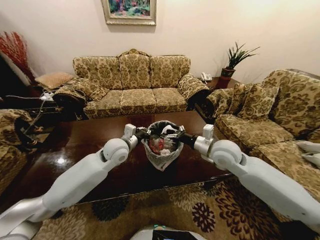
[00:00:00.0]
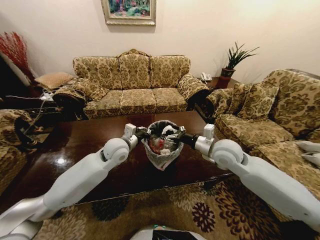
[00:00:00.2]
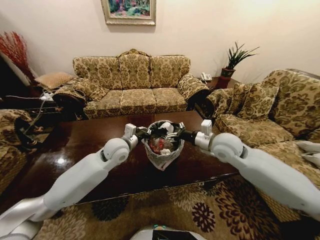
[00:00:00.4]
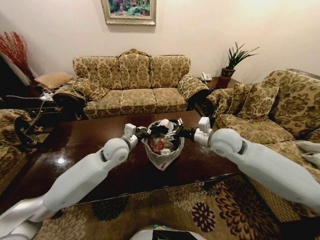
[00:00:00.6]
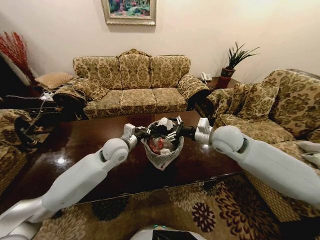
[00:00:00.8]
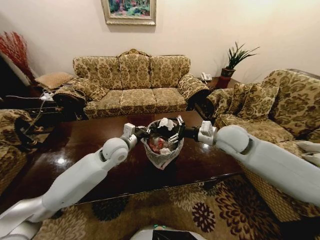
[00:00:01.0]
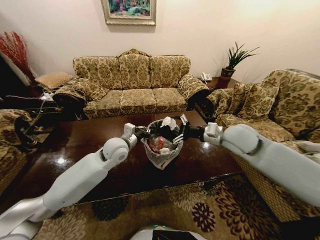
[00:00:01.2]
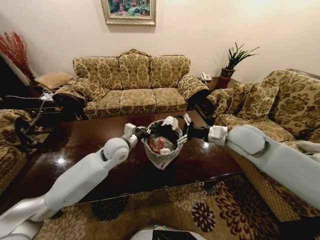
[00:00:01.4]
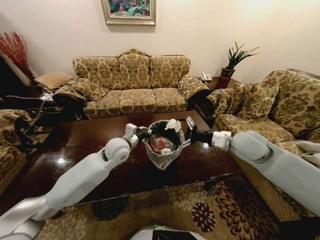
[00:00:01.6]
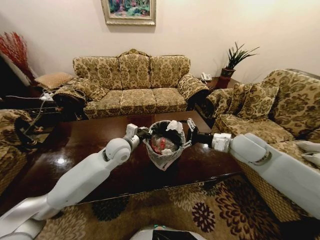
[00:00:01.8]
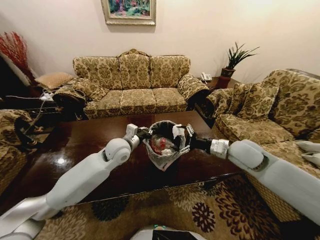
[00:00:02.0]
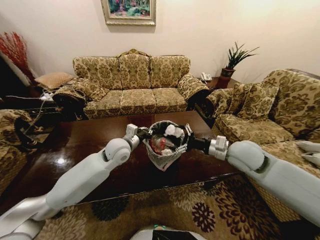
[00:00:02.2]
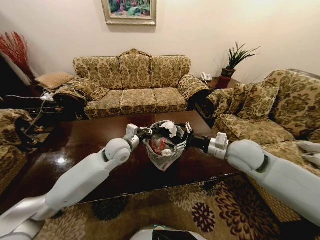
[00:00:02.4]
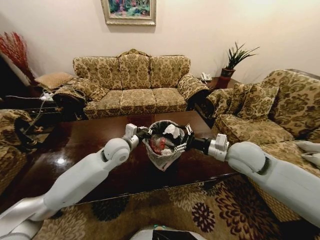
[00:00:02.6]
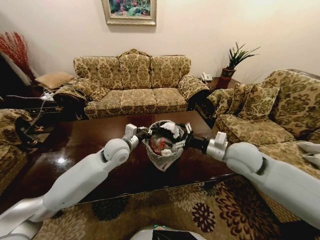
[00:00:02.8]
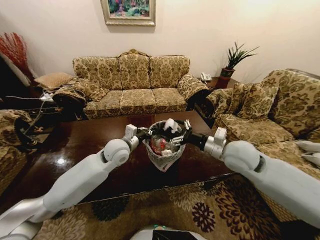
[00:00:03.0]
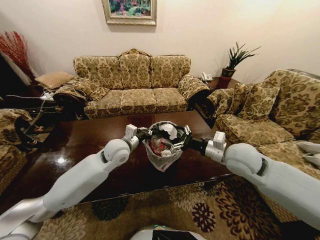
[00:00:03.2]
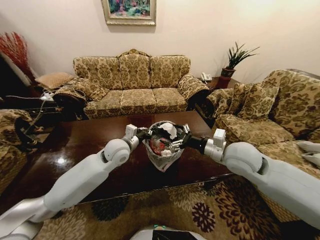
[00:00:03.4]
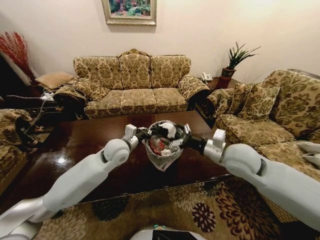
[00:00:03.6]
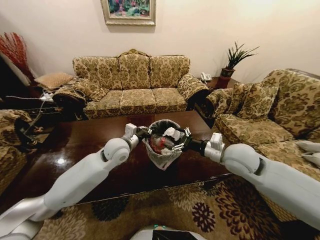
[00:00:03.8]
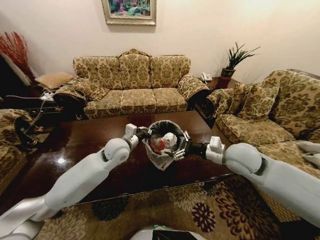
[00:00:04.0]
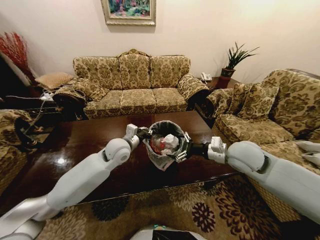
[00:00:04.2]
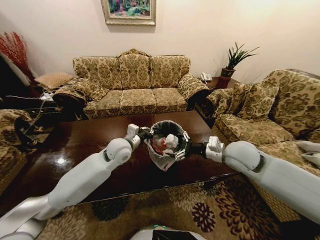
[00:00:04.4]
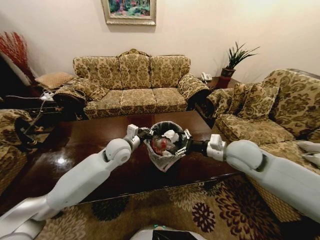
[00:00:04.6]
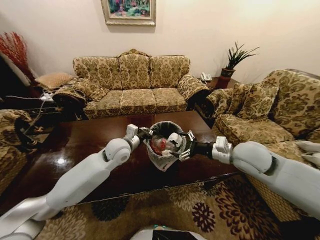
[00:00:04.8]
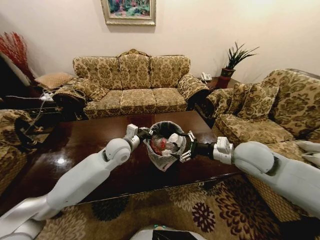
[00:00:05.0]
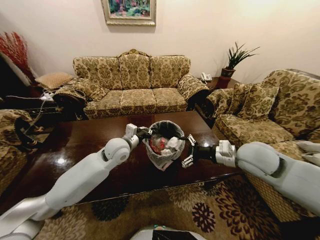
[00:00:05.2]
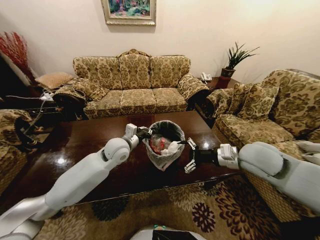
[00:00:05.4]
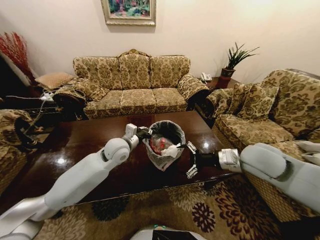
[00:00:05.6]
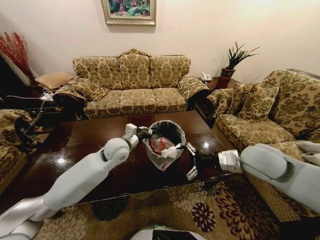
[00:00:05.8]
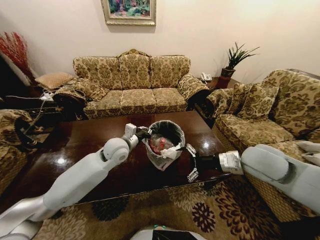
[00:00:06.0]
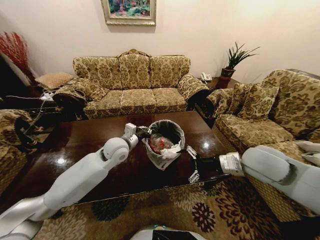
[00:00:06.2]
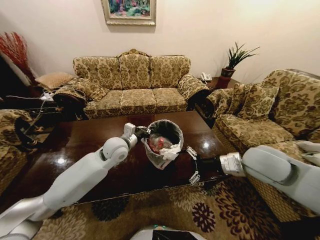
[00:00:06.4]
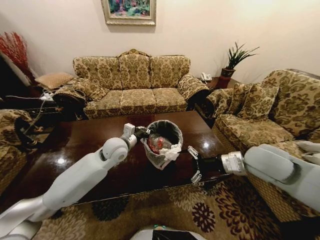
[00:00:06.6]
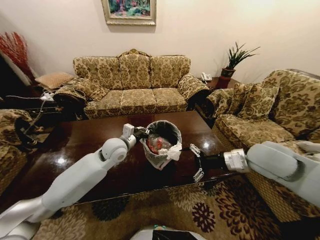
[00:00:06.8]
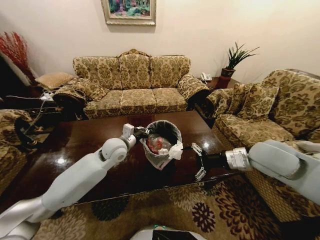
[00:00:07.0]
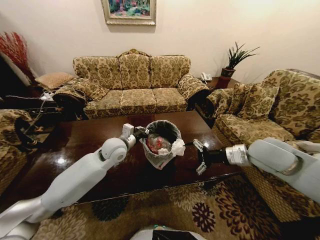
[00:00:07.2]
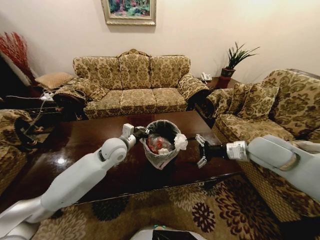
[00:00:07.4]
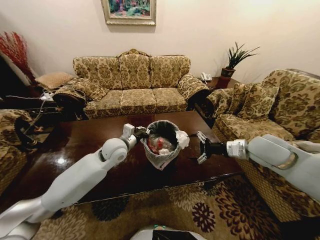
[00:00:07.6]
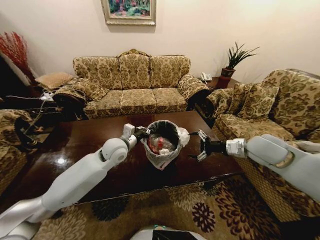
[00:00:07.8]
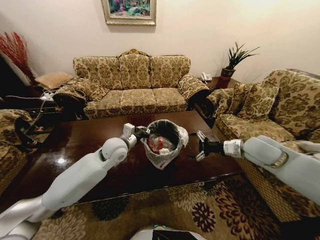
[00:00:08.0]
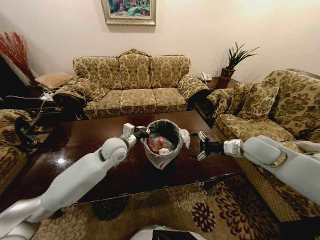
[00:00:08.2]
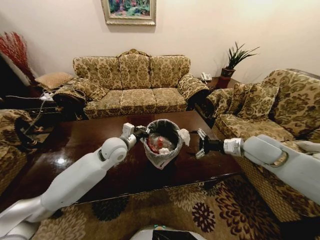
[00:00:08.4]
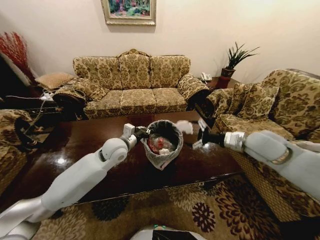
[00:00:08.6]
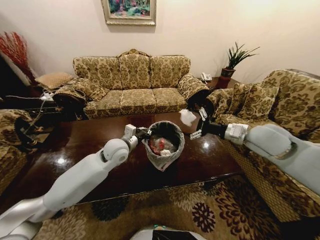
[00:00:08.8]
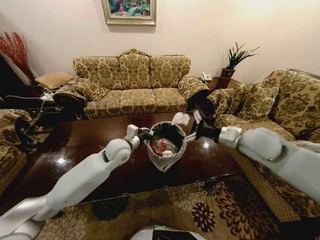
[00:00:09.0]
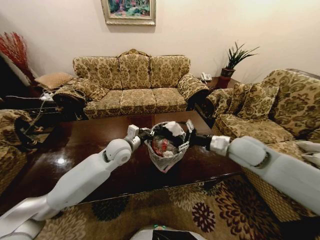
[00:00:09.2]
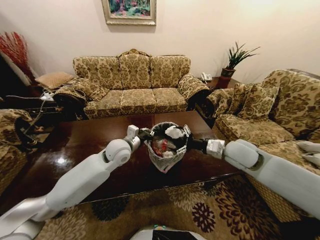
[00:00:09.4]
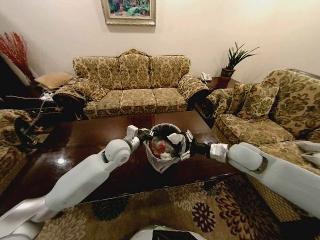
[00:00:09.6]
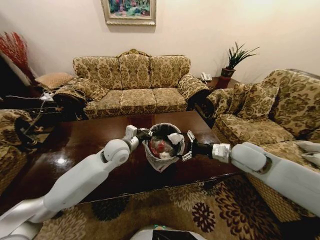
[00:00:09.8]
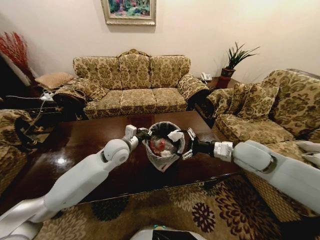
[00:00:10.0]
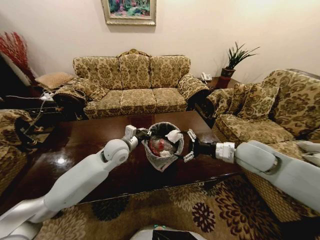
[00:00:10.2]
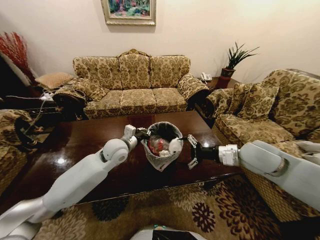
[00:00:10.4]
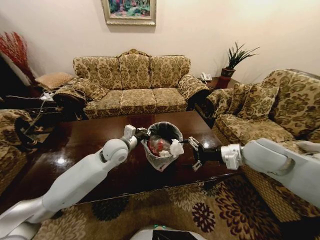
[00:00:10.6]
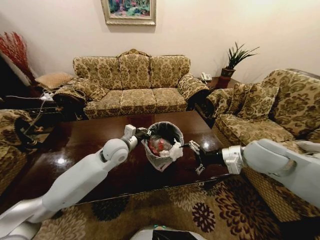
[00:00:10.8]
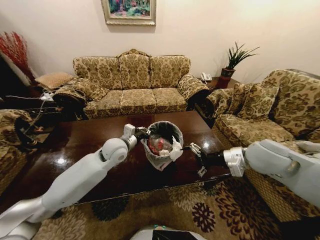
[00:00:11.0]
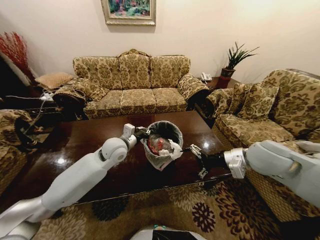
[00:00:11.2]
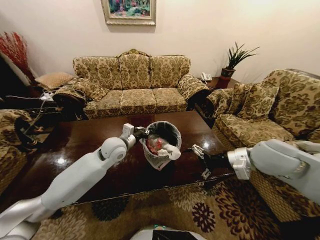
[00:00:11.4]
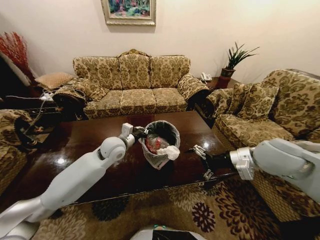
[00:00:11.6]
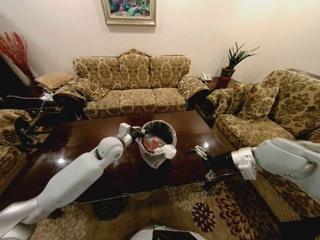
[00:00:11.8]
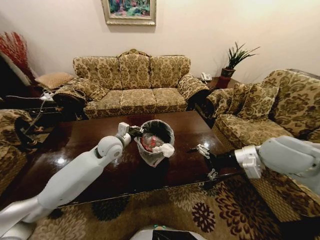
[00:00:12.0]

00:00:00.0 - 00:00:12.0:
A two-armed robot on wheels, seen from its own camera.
Task of the whole recording: Move to the front of the table and place the trash on the table into the trash bin.
00:00:00.0 - 00:00:01.6: The right gripper travels to the right by some 5 cm.
00:00:01.6 - 00:00:03.0: The right gripper shifts by approximately 5 cm.
00:00:04.4 - 00:00:06.0: The right gripper moves approximately 5 cm.
00:00:06.0 - 00:00:07.6: The right gripper moves some 5 cm.
00:00:10.4 - 00:00:12.0: There are only small adjustments of the grippers.

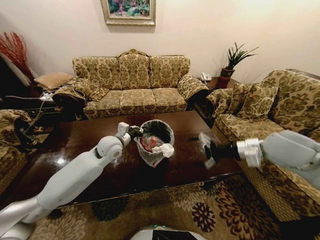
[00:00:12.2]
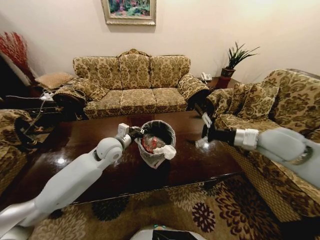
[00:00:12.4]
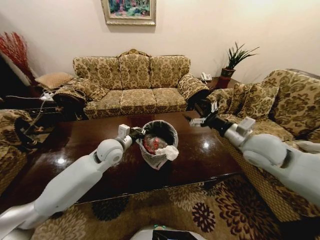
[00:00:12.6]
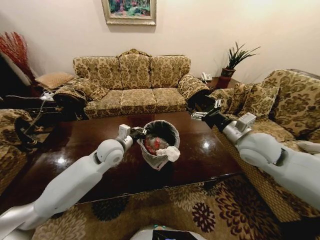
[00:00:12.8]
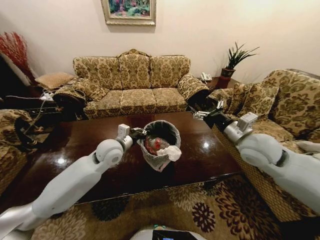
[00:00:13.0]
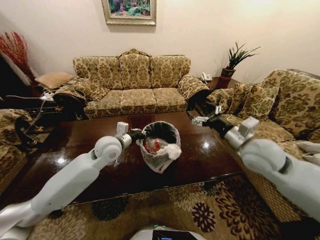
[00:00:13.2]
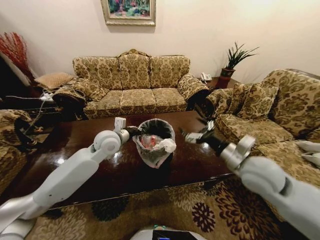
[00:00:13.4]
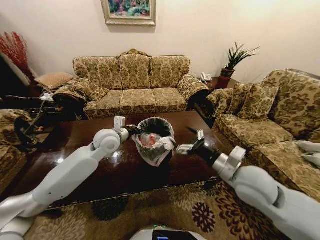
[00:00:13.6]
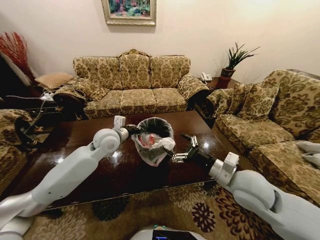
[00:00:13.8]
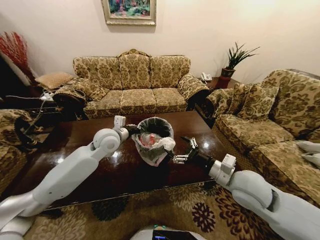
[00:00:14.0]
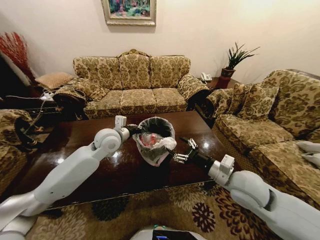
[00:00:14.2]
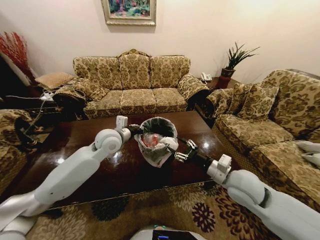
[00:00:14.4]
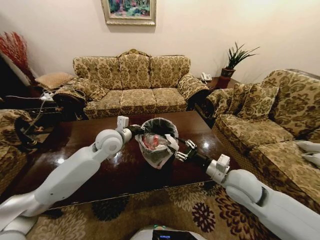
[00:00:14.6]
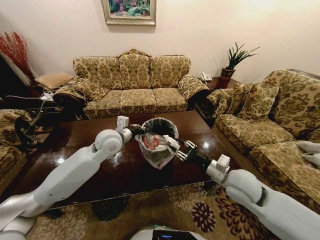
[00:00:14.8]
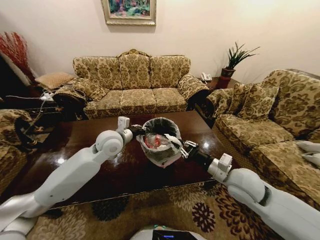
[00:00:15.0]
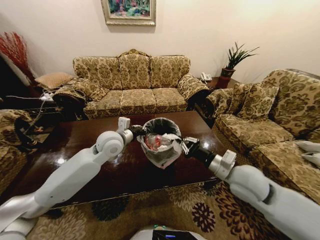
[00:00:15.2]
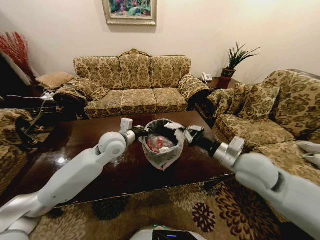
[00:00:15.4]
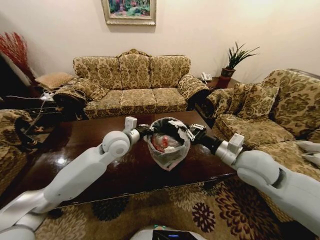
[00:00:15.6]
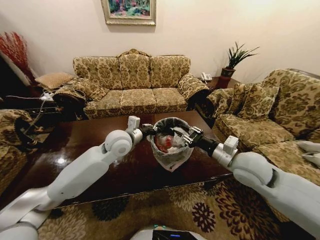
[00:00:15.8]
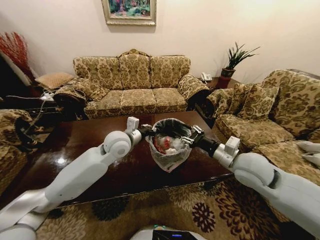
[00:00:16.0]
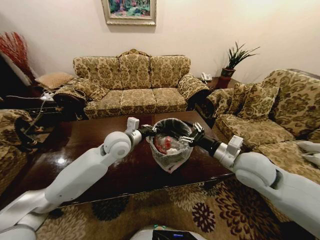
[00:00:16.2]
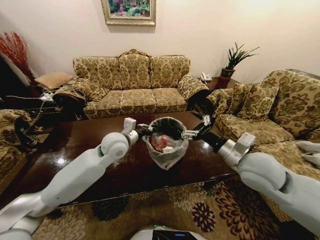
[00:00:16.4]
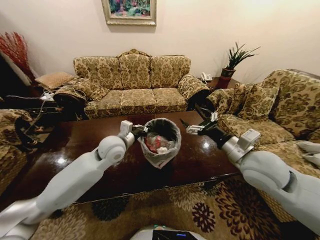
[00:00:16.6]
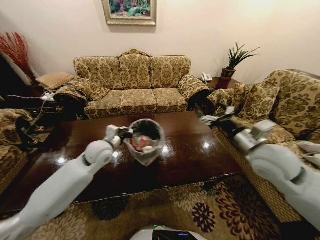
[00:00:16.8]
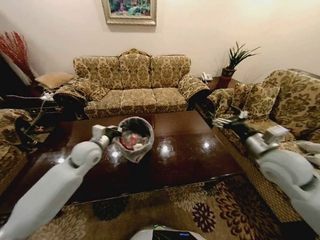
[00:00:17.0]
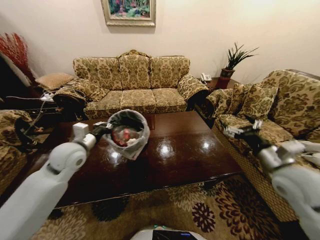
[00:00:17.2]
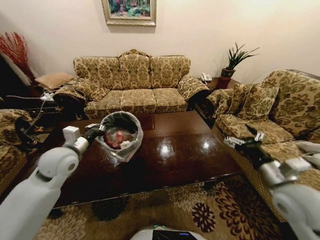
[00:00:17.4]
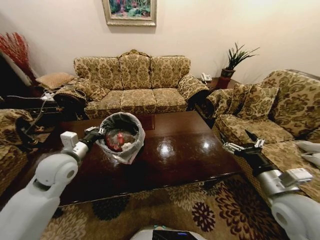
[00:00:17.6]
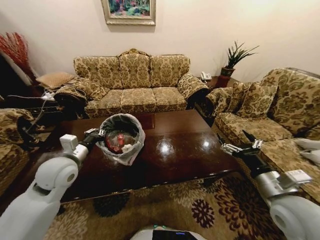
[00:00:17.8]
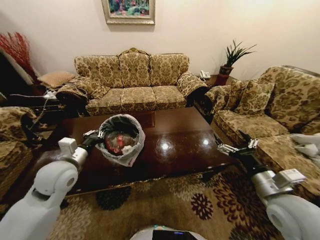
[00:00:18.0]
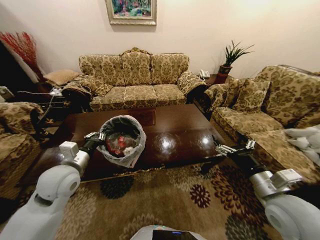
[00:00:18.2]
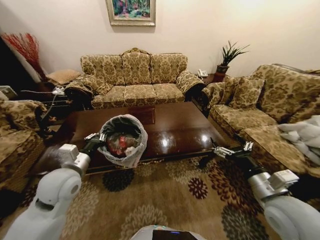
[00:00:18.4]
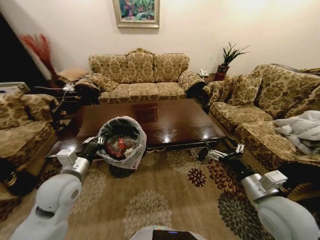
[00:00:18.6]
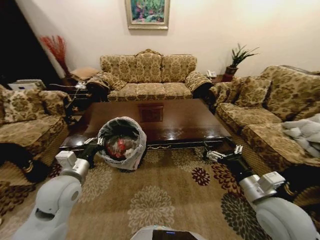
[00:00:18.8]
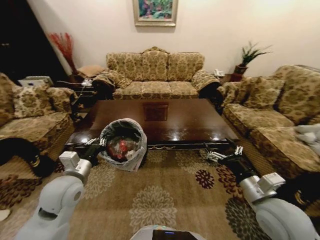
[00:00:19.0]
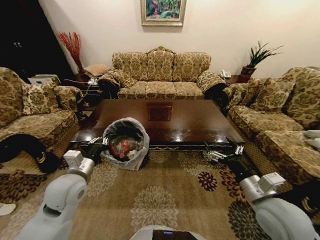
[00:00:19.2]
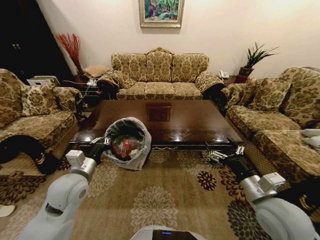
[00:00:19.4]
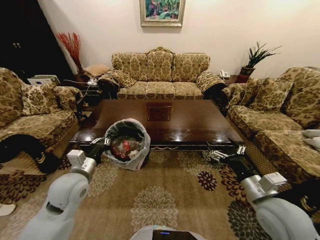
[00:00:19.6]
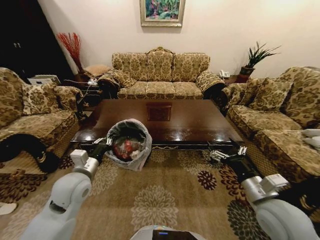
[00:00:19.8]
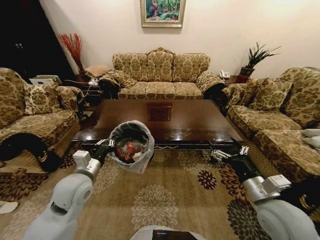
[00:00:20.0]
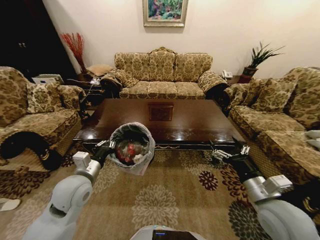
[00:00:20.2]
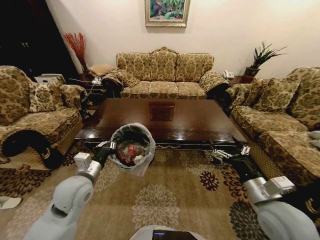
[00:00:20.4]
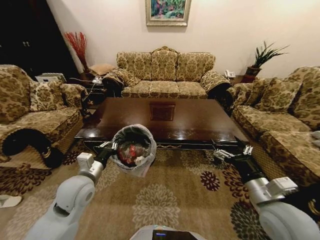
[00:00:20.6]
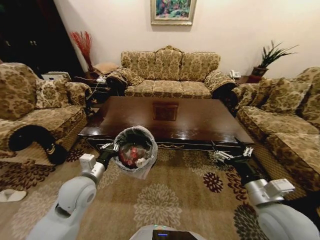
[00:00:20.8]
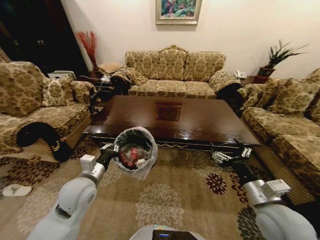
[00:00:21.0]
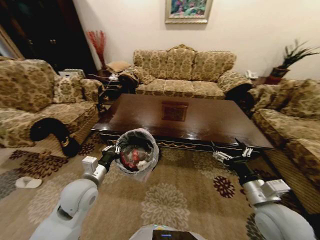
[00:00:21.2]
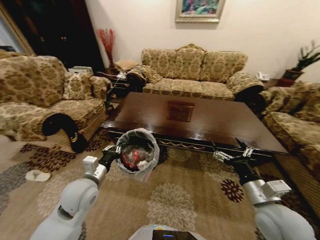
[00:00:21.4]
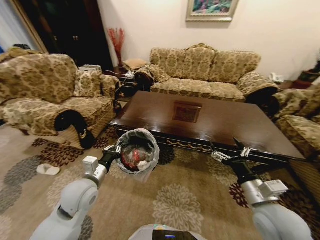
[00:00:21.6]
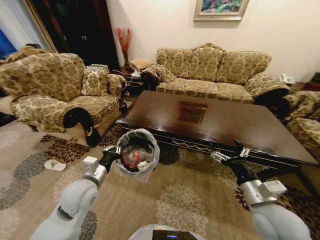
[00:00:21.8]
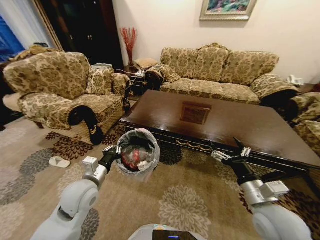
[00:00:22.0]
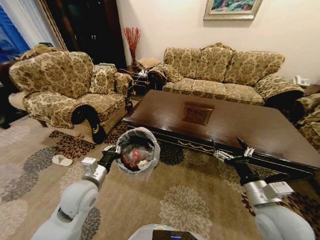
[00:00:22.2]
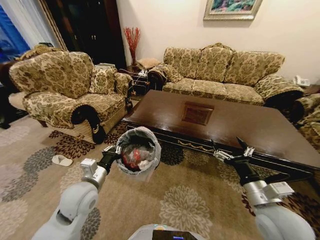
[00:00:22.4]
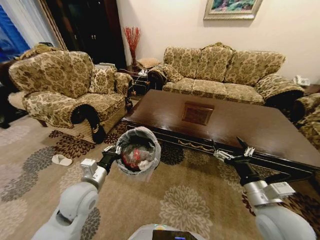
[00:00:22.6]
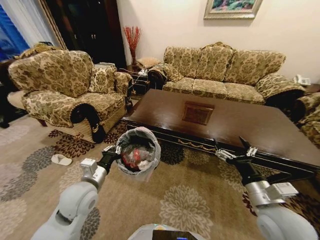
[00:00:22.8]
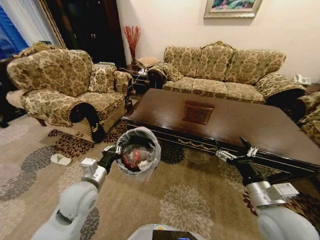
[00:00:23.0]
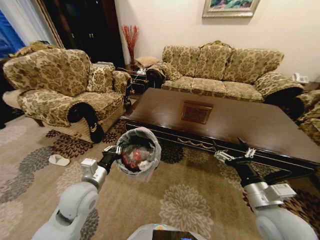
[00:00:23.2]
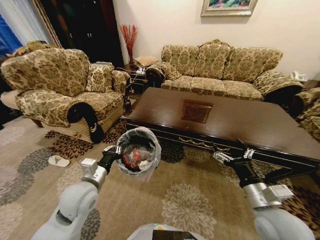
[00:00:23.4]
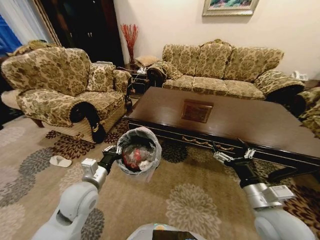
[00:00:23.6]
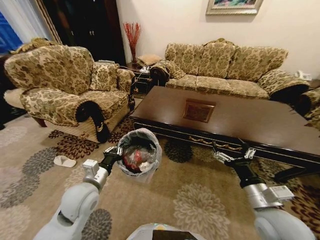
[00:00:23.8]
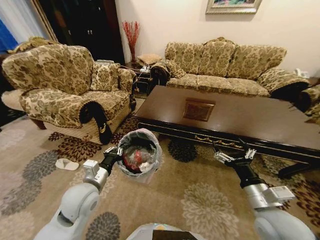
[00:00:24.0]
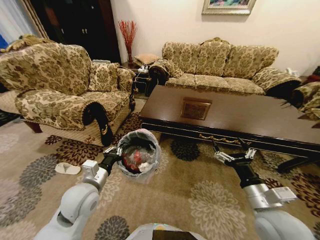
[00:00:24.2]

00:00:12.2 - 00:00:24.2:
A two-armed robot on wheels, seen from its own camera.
Task of the whole recording: Move to the front of the table and place the trash on the table into the trash bin.
00:00:12.2 - 00:00:13.8: The right gripper heads downward, to the left and backward, covering approximately 15 cm.
00:00:13.8 - 00:00:15.2: The right gripper closes up.
00:00:15.2 - 00:00:16.6: The right gripper shifts approximately 5 cm upward, and opens up.
00:00:16.6 - 00:00:18.2: The left gripper heads to the left and backward, covering roughly 15 cm. Meanwhile the right gripper goes roughly 10 cm backward, downward and to the right.
